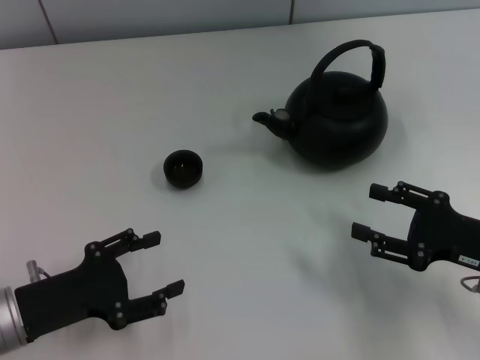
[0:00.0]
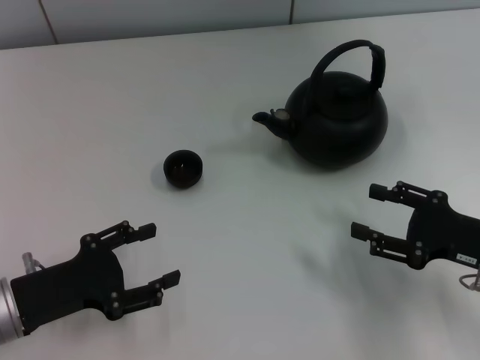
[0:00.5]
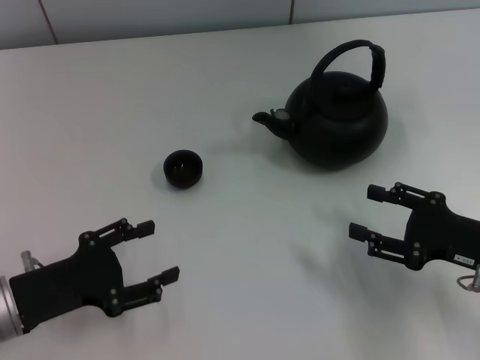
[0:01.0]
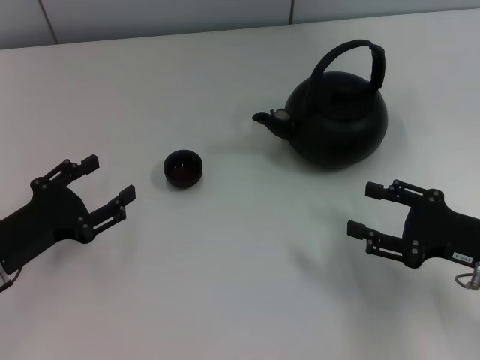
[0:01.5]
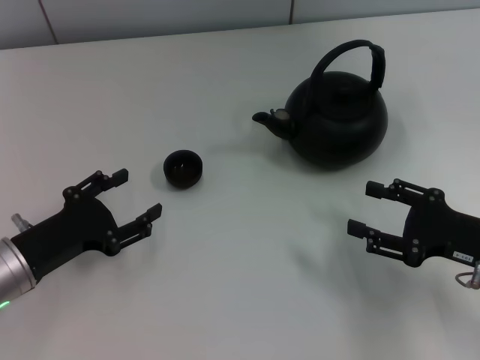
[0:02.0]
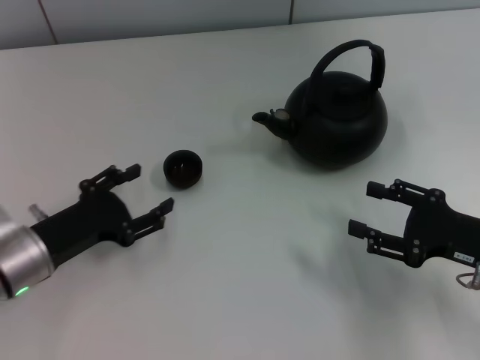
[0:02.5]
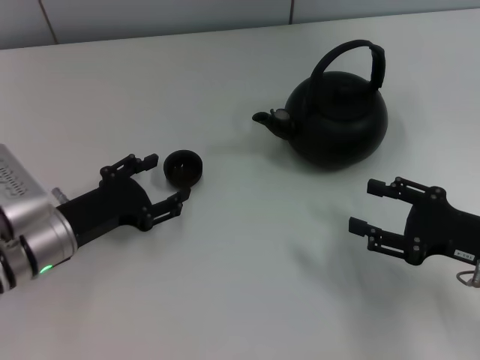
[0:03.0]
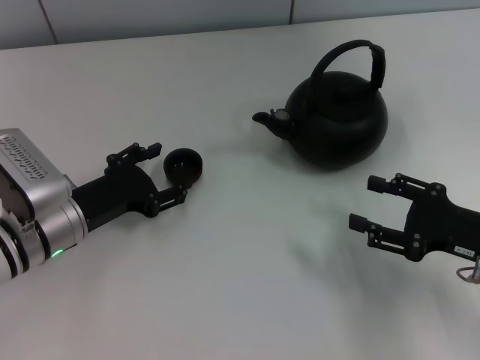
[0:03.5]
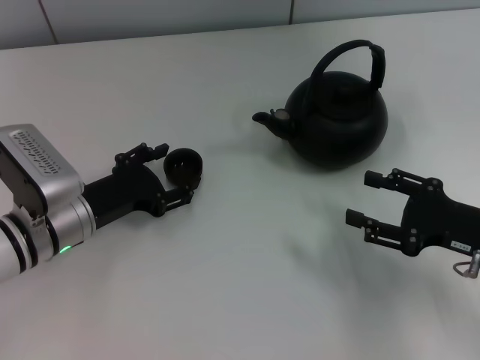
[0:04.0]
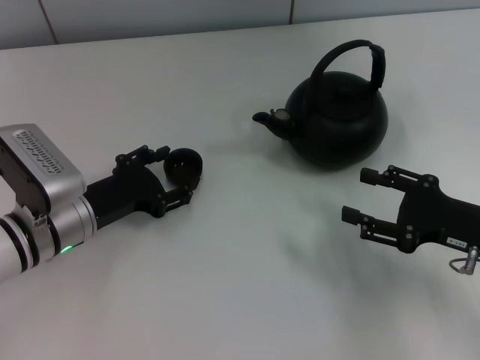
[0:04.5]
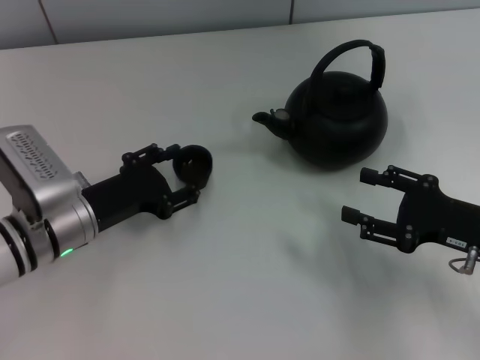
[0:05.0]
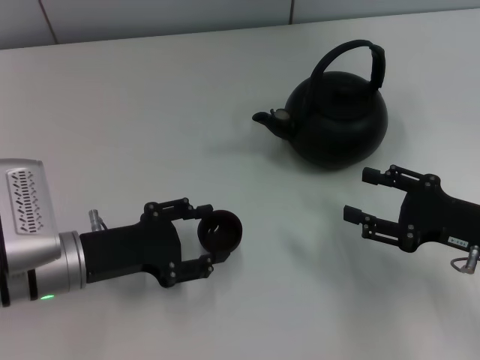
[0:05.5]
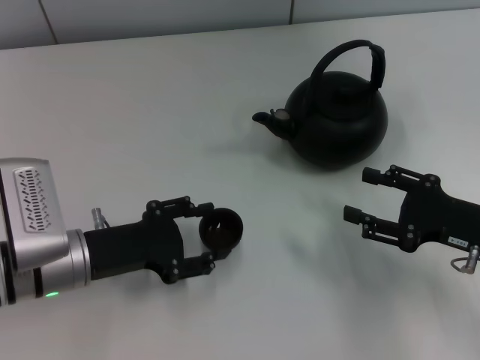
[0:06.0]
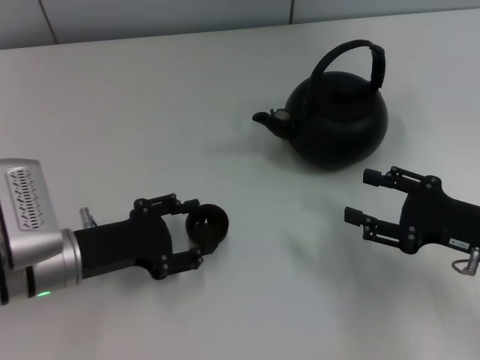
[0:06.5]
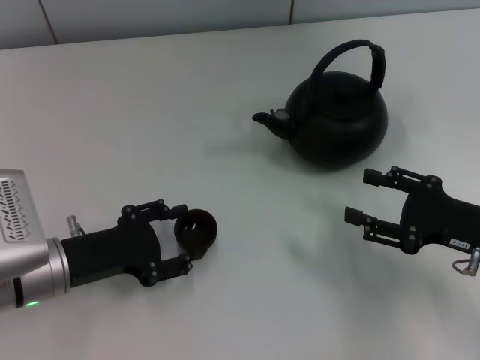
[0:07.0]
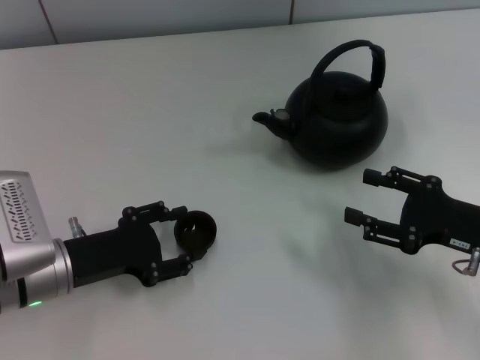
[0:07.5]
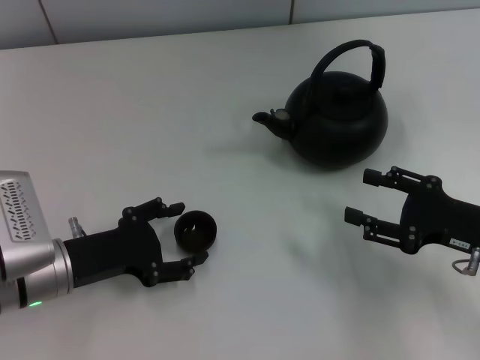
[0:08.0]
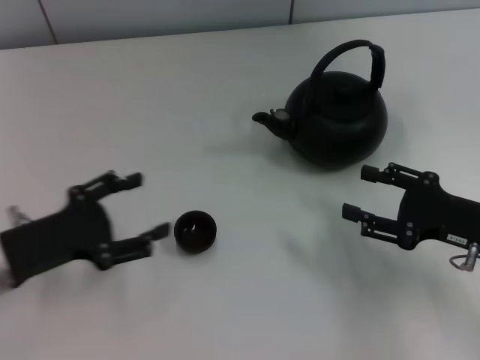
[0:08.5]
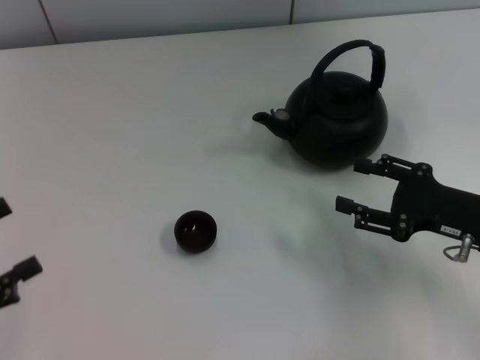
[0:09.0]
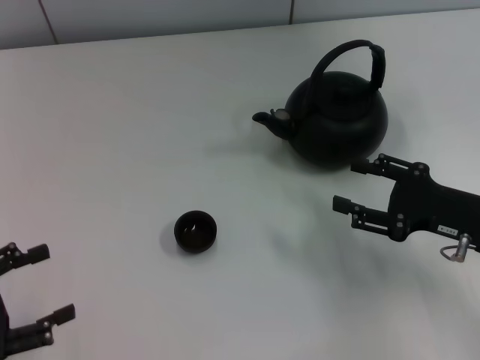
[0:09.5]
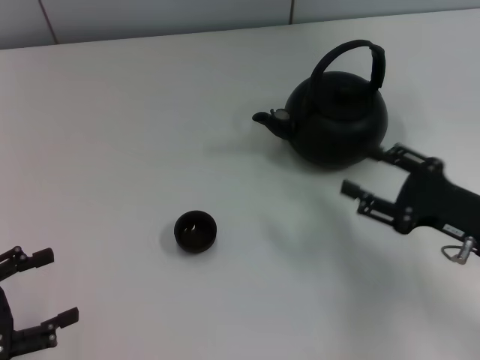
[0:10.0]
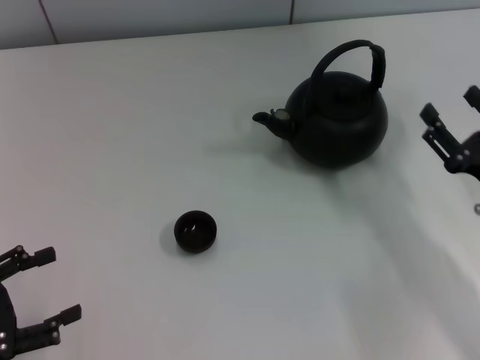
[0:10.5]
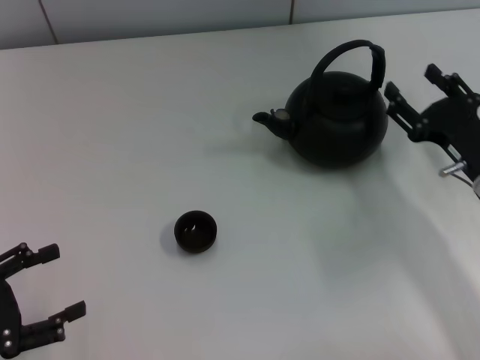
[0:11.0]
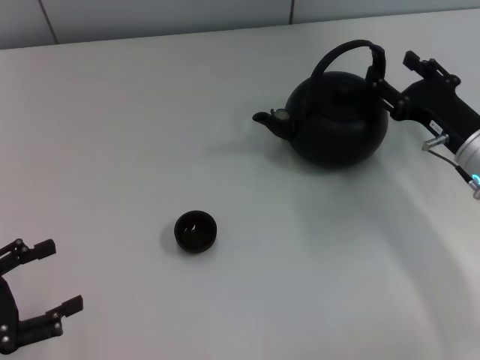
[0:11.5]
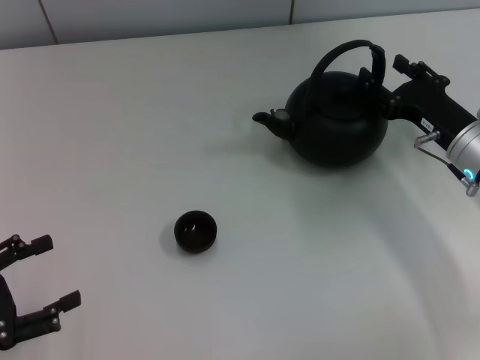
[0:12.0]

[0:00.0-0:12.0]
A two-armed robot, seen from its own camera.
Task of the whole recording: Grasp the handle of the teapot with one hand and pour tea into the teacup.
Step, 0:00.0 to 0:05.0: Pick up the teacup with the left gripper.
Step, 0:05.5 to 0:08.0: Place the teacup in the center of view with the left gripper.
0:02.0 to 0:04.0: The left gripper heads to the right and forward, covering approximately 10 cm.
0:04.0 to 0:06.0: The left gripper closes.
0:06.0 to 0:08.0: The left gripper opens its fingers.
0:08.0 to 0:10.0: The left gripper heads to the left and backward, covering approximately 15 cm.
0:10.0 to 0:12.0: The right gripper goes about 10 cm forward.

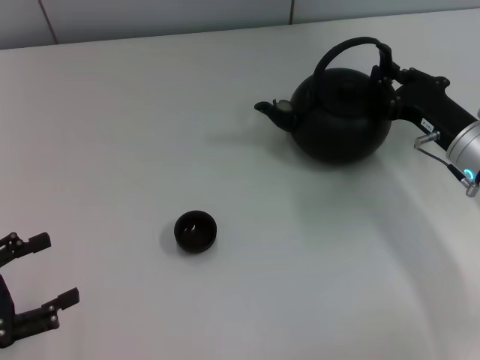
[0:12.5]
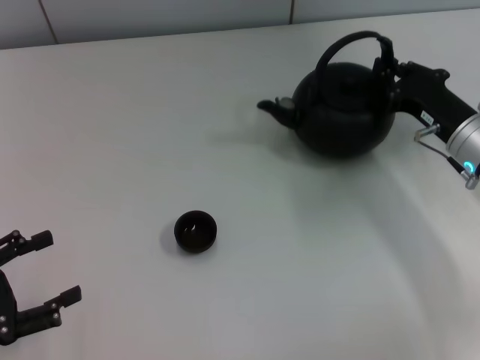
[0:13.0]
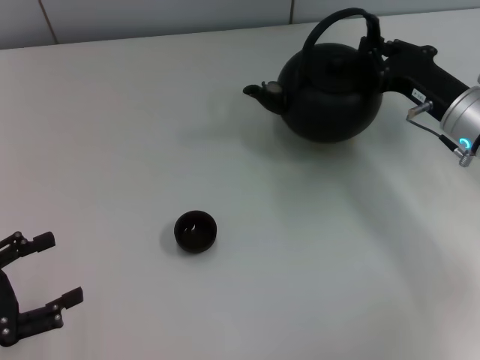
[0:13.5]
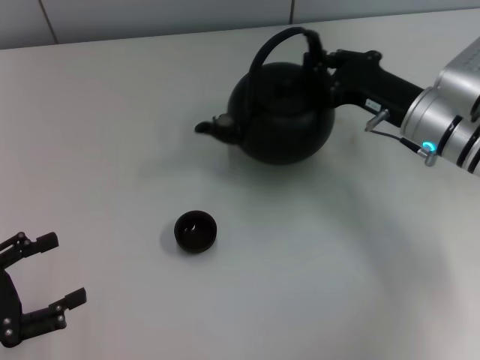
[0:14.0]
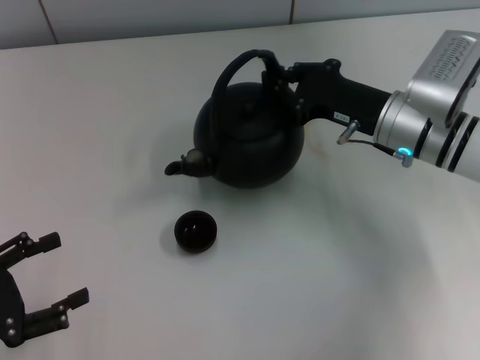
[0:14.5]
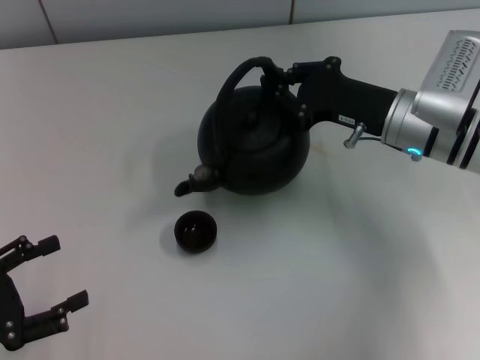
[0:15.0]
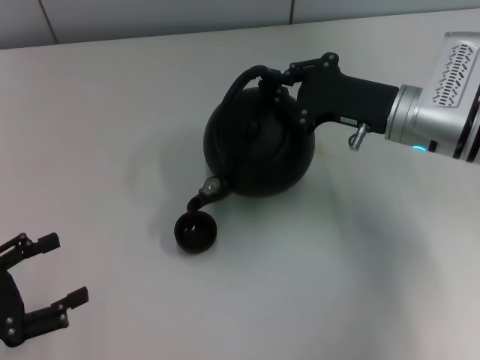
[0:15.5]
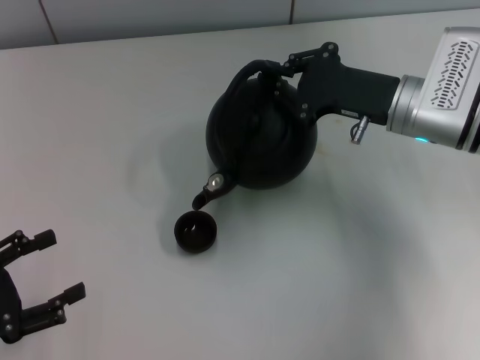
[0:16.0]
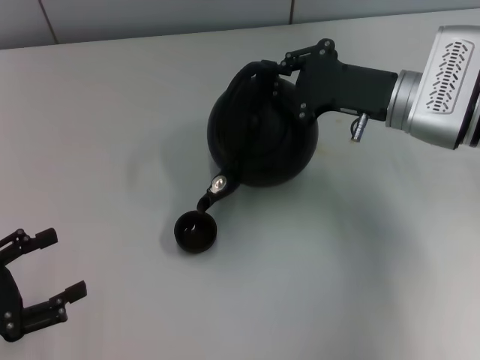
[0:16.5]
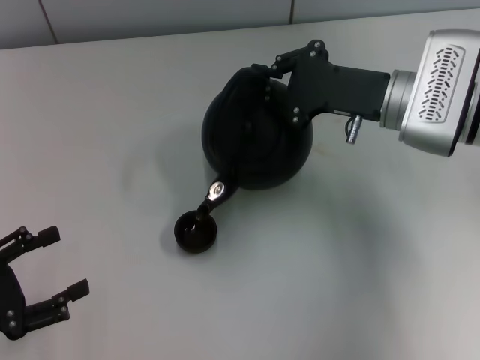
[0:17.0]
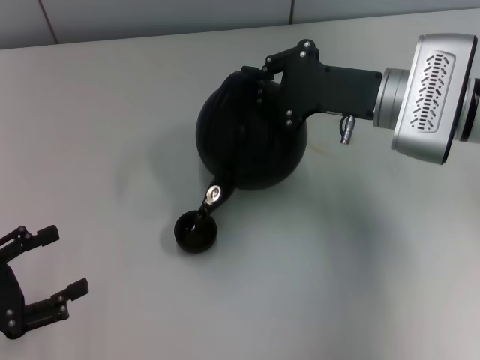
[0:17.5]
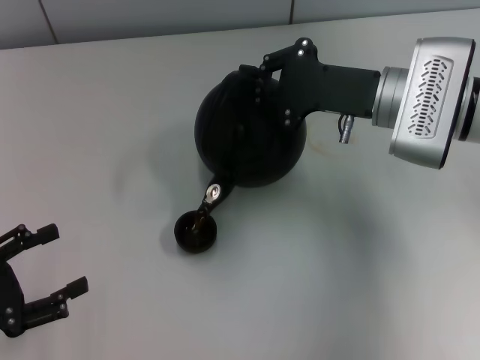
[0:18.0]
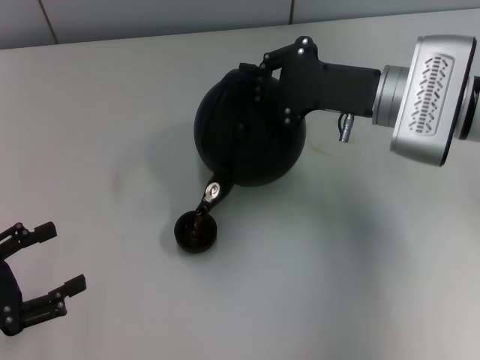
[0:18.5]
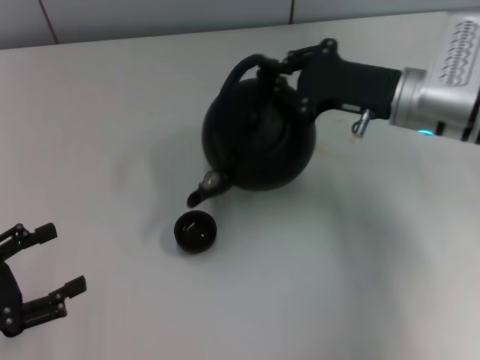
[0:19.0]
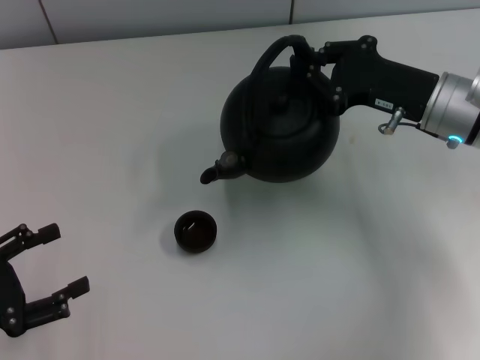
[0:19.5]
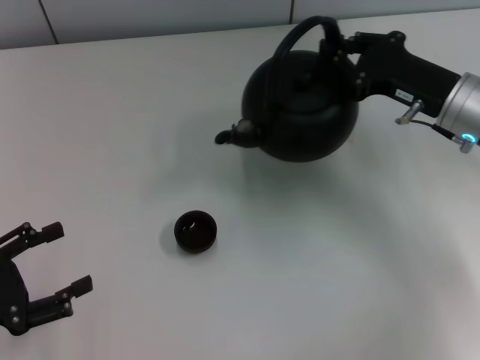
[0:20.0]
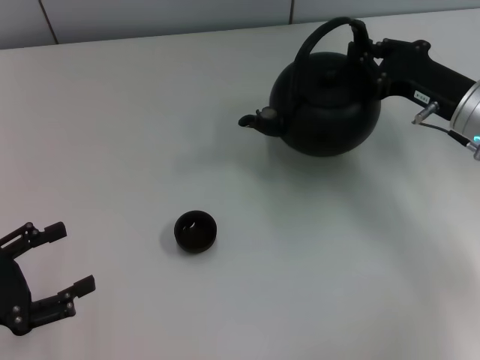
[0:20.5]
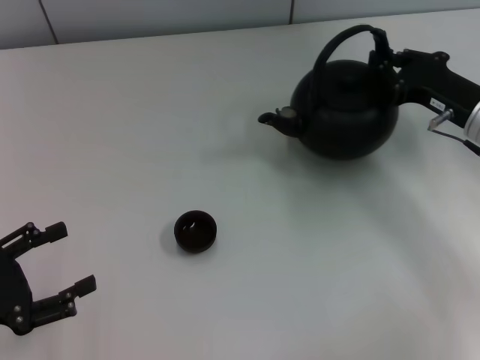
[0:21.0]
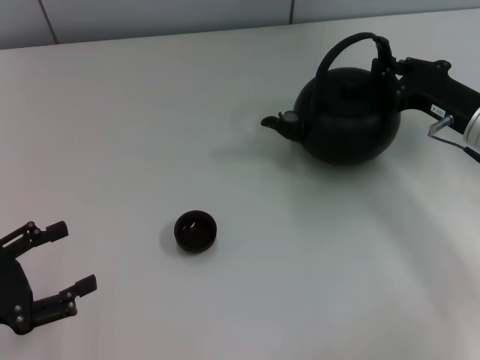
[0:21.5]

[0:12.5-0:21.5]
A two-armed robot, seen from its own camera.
Task of the whole recording: Grasp the handle of the teapot with one hand and pour tea into the teacup.
0:12.5 to 0:14.5: The right gripper moves to the left, approximately 5 cm, and closes its fingers.
0:19.5 to 0:21.5: The right gripper heads to the right, covering roughly 5 cm.

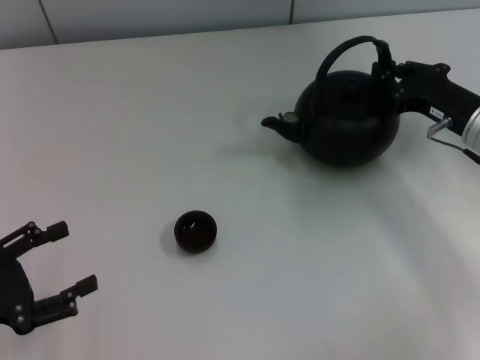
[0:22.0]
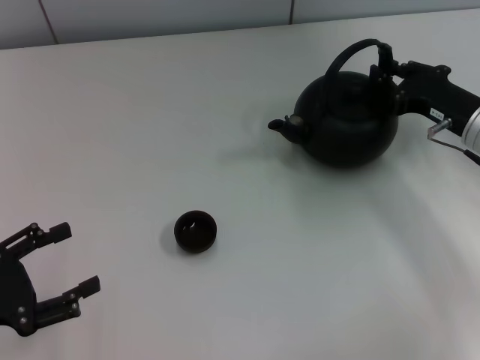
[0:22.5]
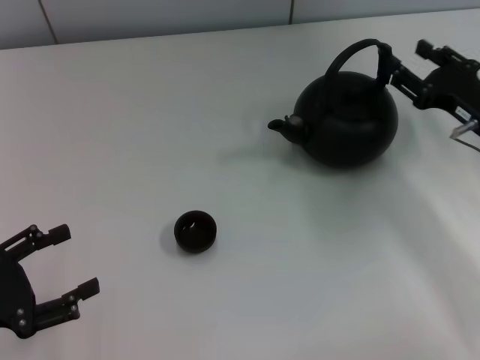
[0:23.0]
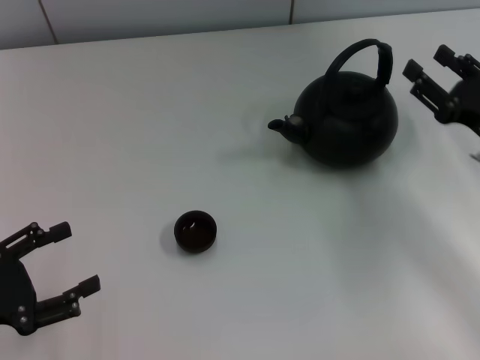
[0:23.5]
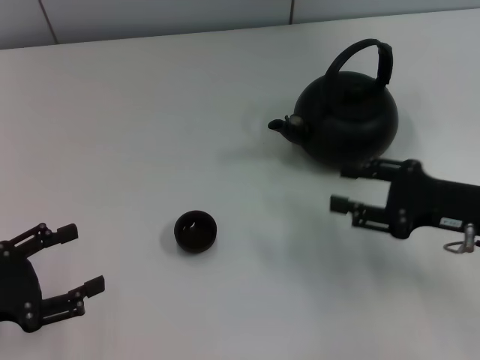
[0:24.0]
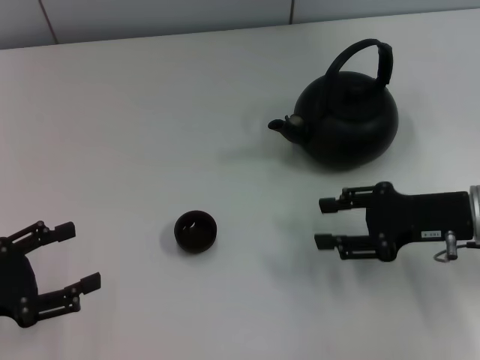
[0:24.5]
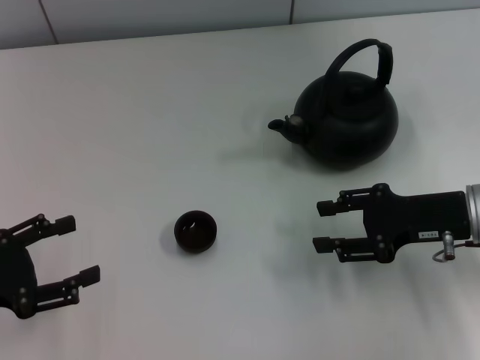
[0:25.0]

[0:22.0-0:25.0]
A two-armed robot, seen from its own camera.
Task of the whole recording: Grasp the handle of the teapot with one hand and pour tea into the teacup.
0:22.0 to 0:23.5: The right gripper heads backward, covering approximately 5 cm, and opens.
